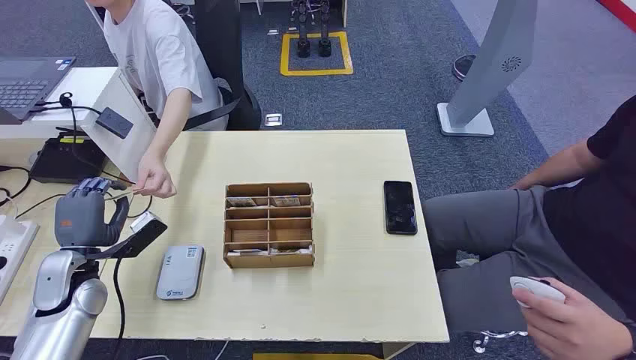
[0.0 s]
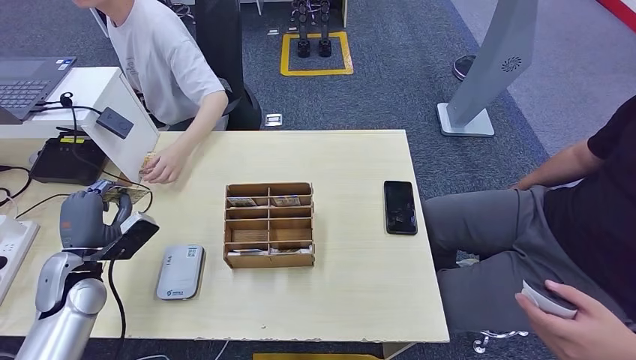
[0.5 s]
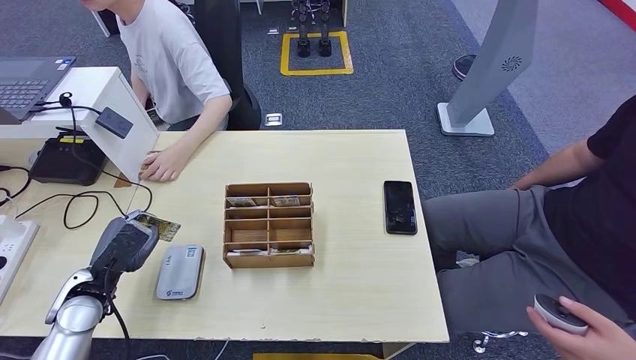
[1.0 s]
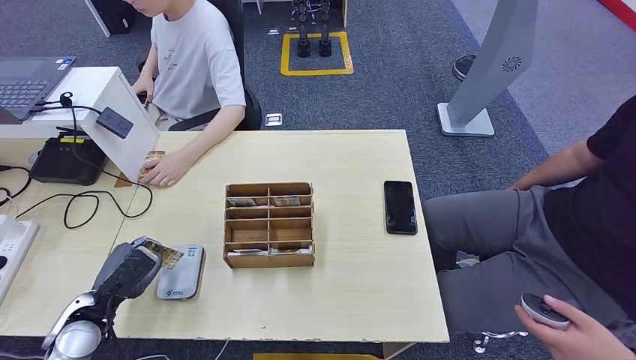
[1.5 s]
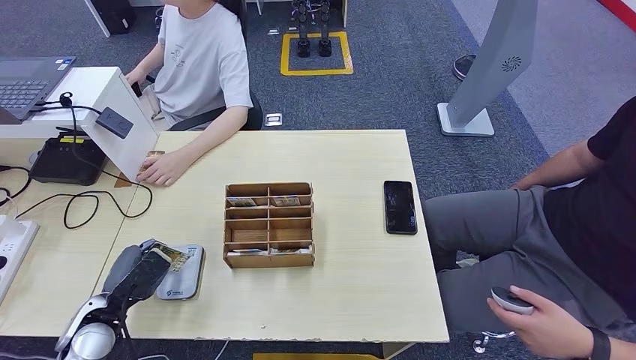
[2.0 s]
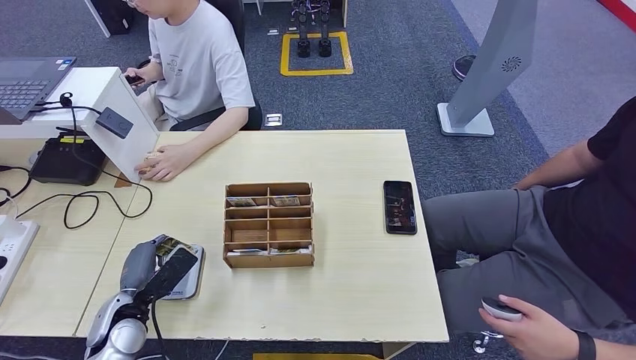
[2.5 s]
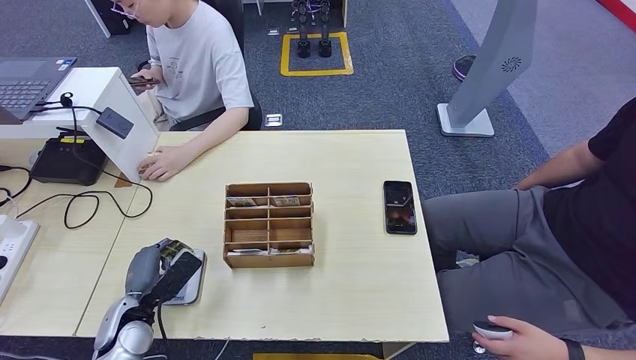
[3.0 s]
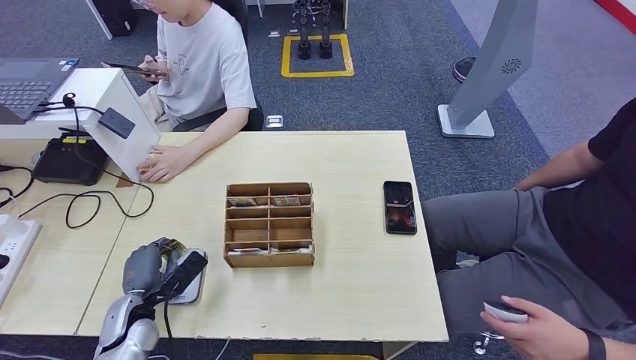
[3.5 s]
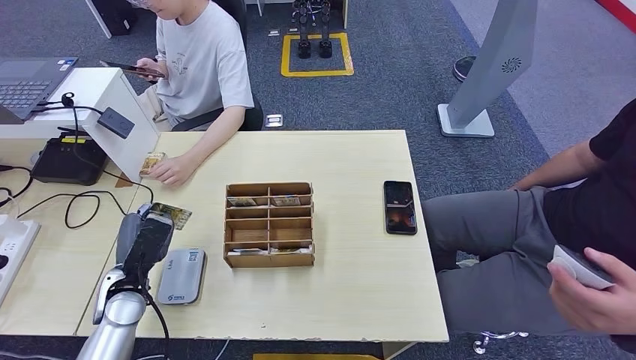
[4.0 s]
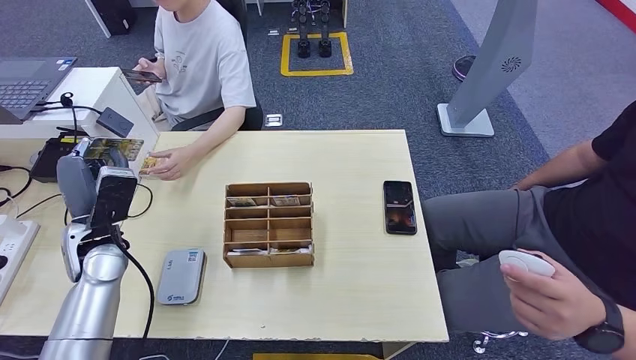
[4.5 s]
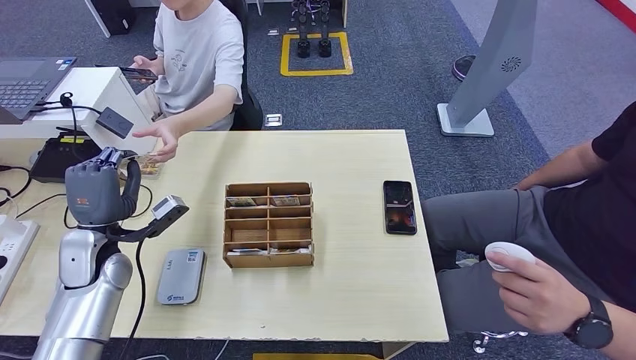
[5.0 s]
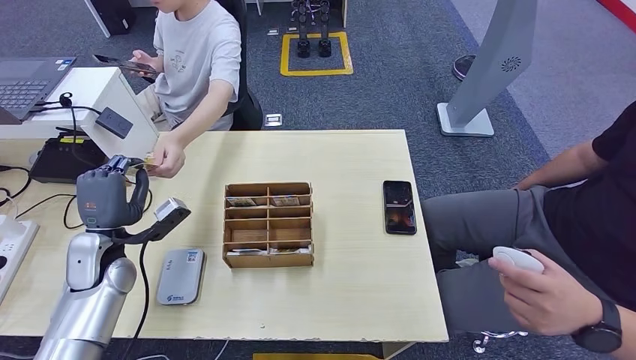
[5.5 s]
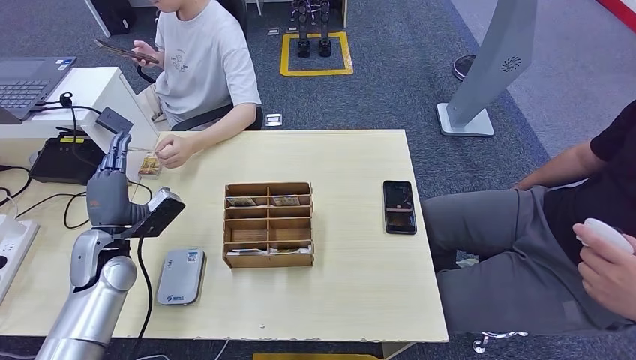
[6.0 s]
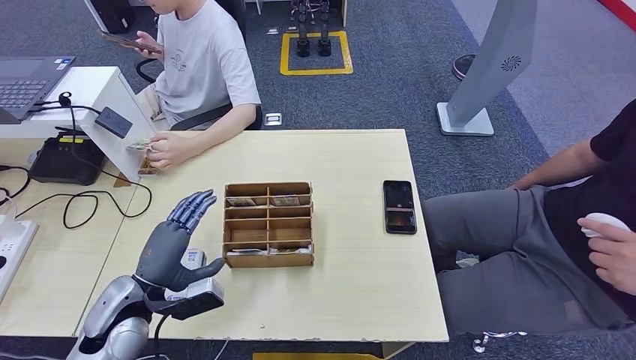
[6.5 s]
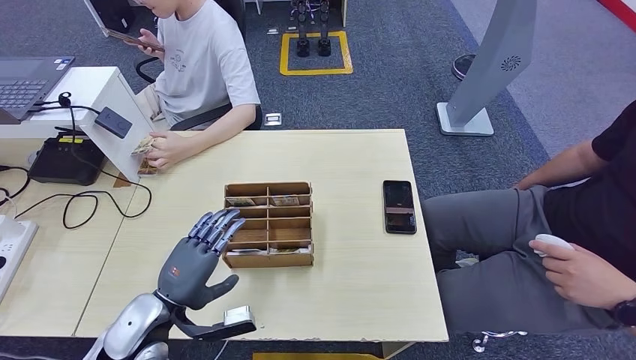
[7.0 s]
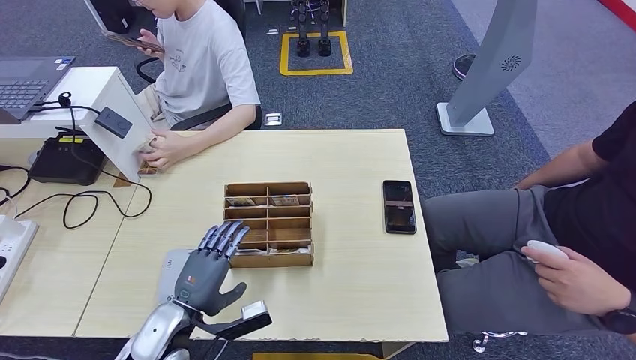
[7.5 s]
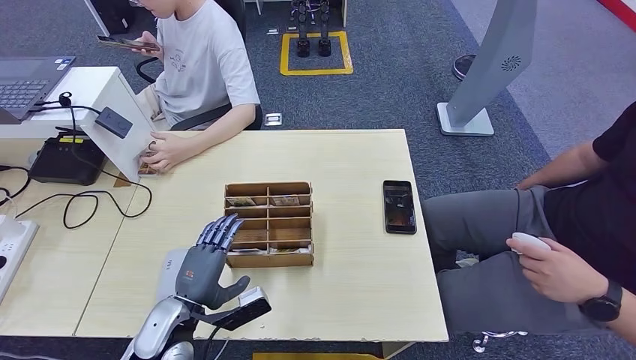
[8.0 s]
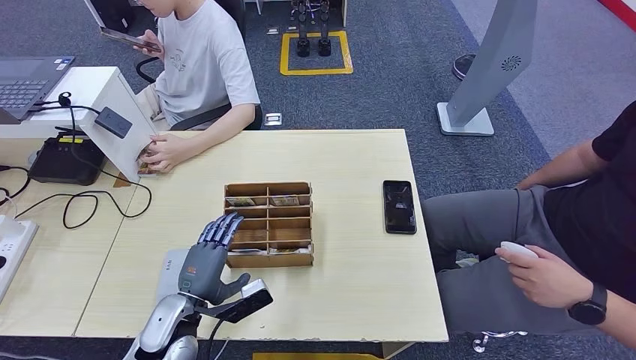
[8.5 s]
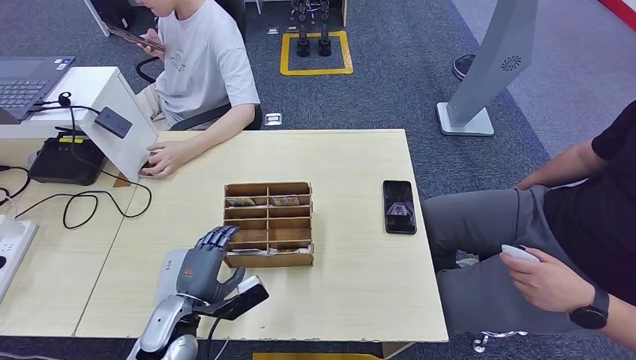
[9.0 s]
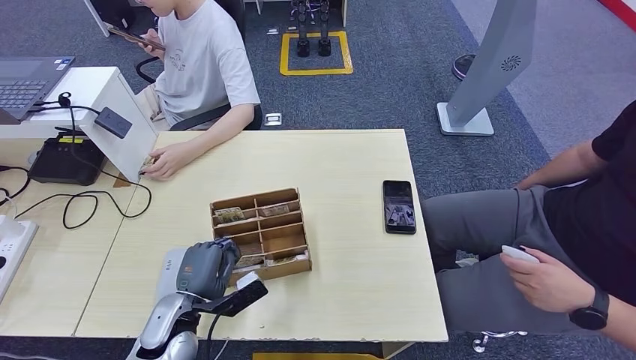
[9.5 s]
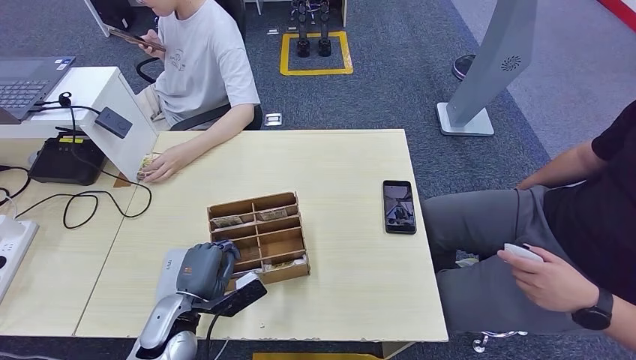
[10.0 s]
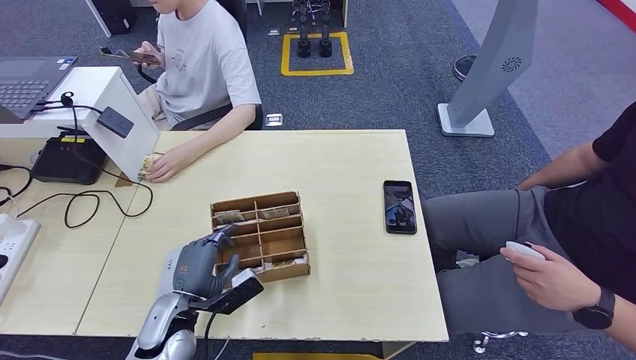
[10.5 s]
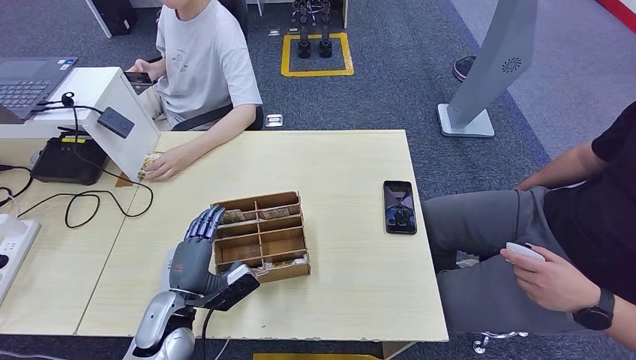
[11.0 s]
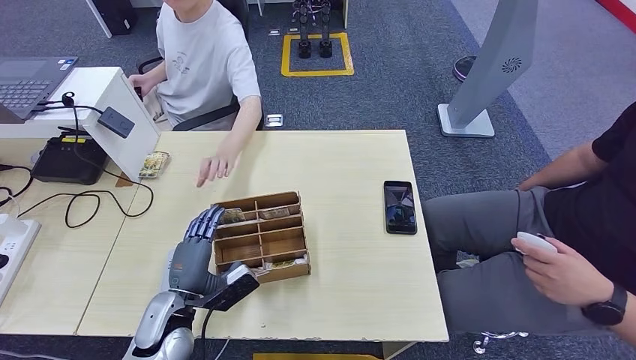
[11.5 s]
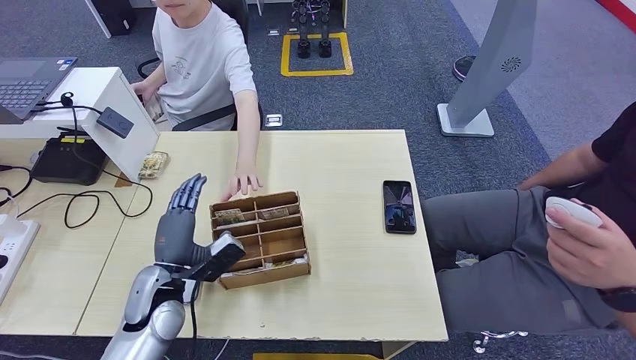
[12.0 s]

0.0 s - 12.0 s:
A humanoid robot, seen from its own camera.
Step, 0.0 s - 1.0 s: Take the ID card from the person's hand.
Step, 1.5 s - 3.0 s: Place the ID card on the card reader.
Step, 3.5 s - 6.0 s: Hand the ID card to the person.
2.0 s - 4.0 s: The left hand ends up roughly 5 cm from where it was.
4.0 s - 6.0 s: The left hand moves upward, about 5 cm.
6.0 s - 8.0 s: The left hand moves to the right, backward and downward, about 20 cm.
8.0 s - 10.0 s: The hands move only a little.
10.0 s - 12.0 s: The left hand ends up roughly 5 cm from where it was.

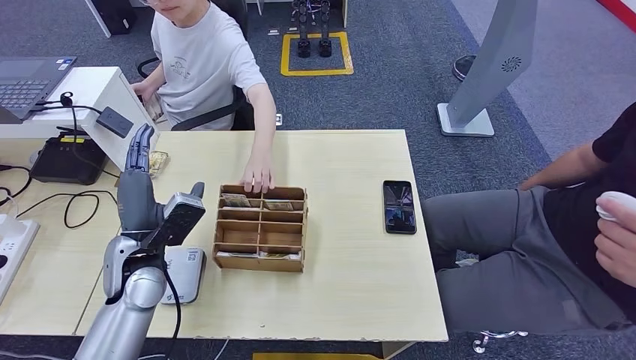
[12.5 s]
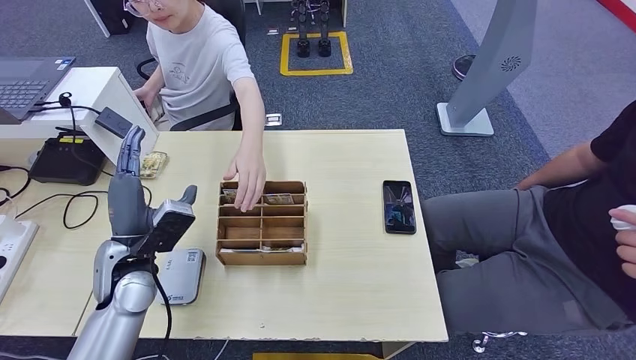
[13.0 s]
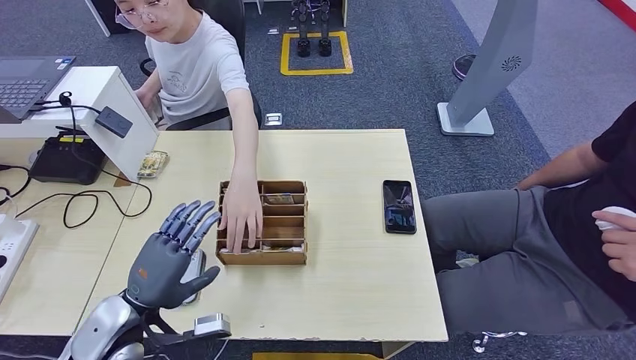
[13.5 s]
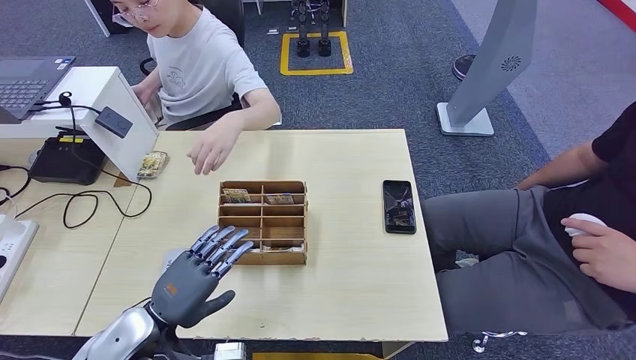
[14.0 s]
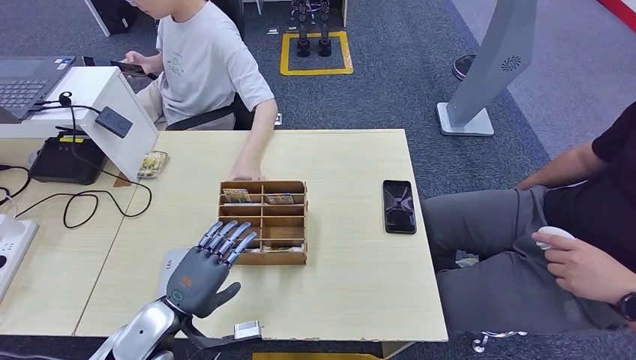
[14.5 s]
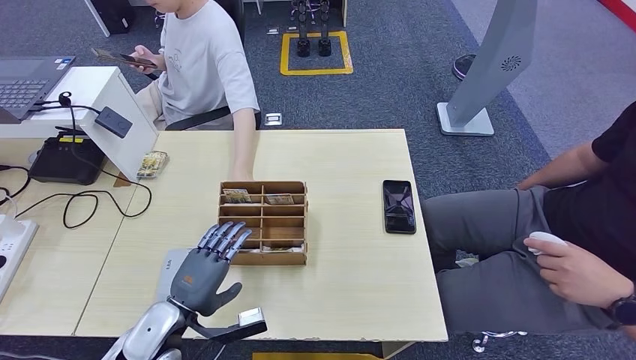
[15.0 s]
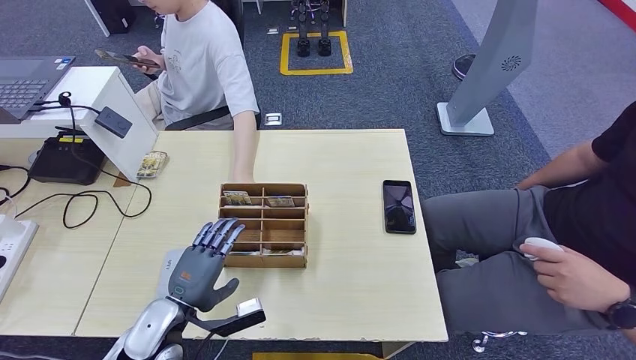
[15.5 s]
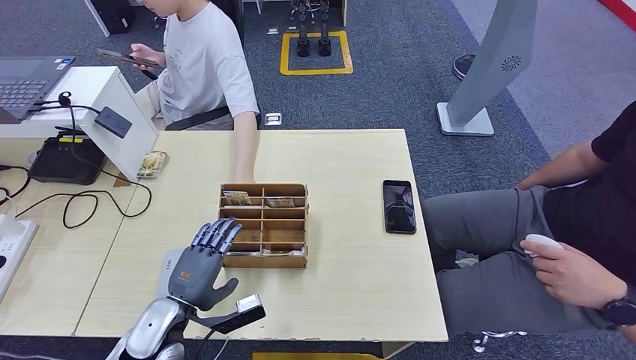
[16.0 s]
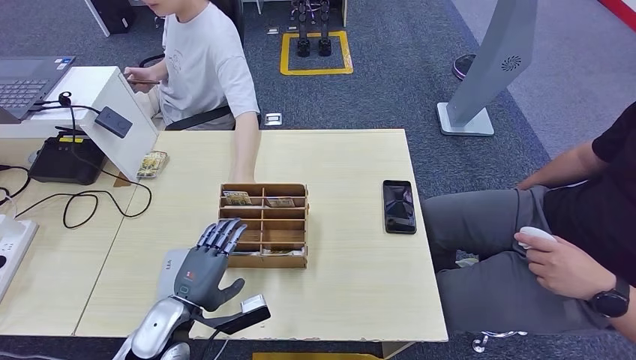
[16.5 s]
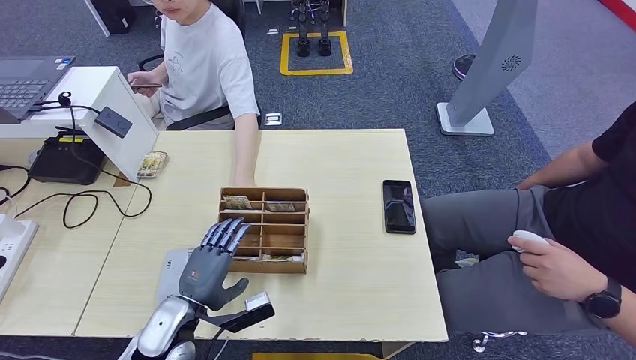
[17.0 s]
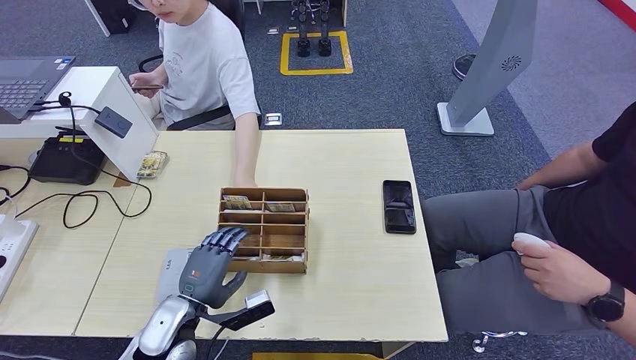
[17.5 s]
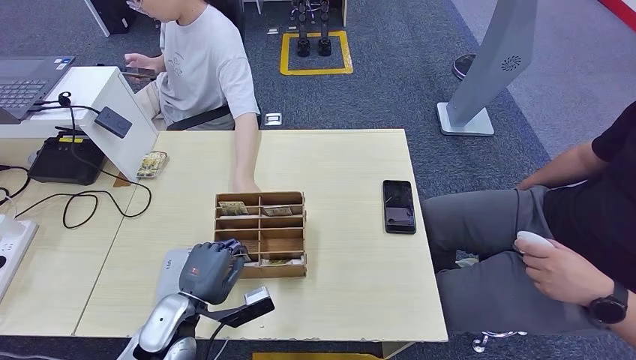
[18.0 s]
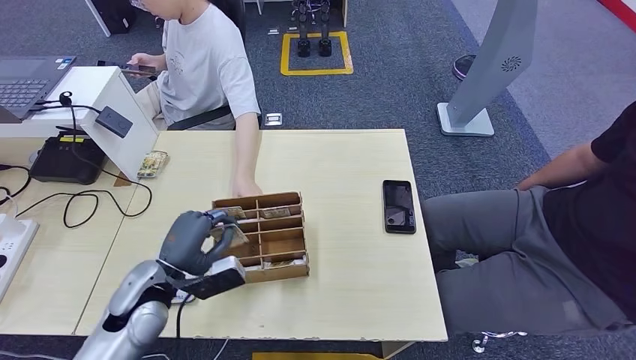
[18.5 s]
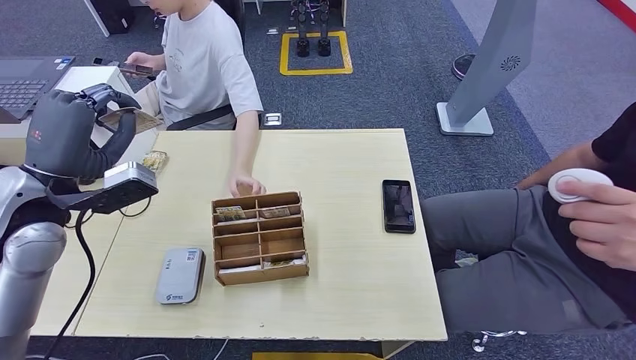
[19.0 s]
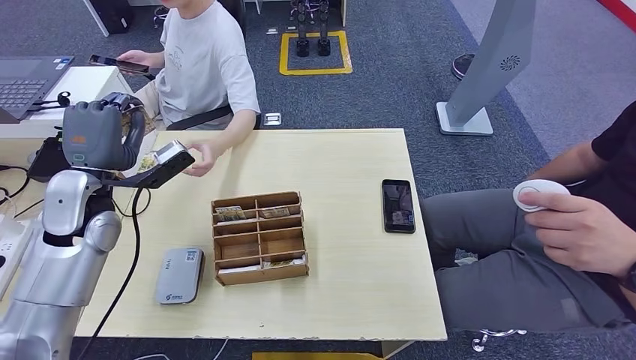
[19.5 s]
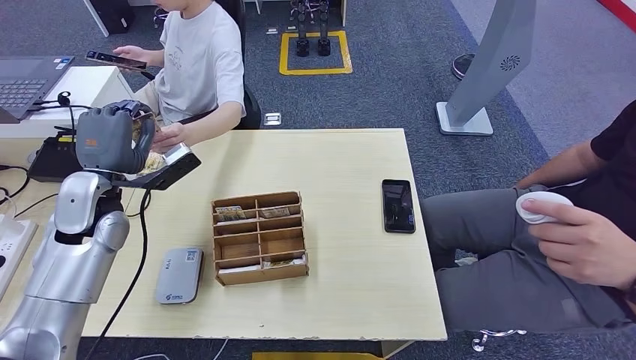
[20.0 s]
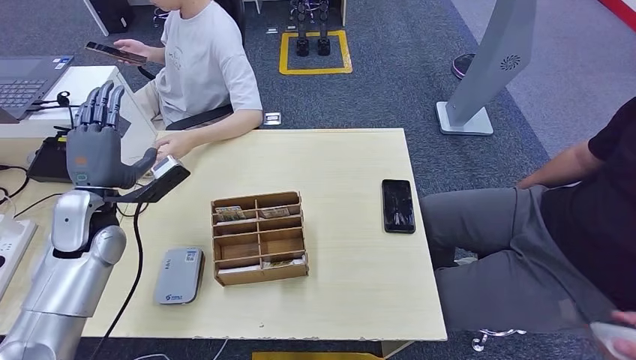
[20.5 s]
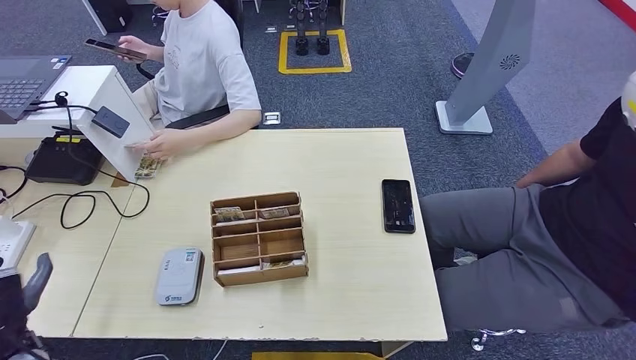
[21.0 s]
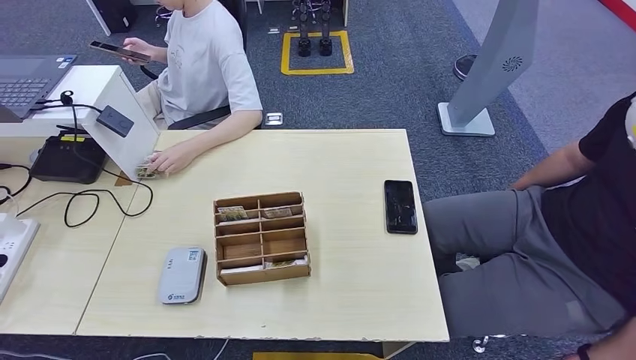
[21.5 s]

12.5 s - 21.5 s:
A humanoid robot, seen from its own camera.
Step, 12.5 s - 18.5 s: Pick up the room key from the key card box.
Step, 19.0 s - 21.5 s: Hand the room key to the person.
12.5 s - 14.5 s: The left hand heads backward and downward, covering some 10 cm.
14.5 s - 17.0 s: The hands stay close to where they were, moving slightly.
